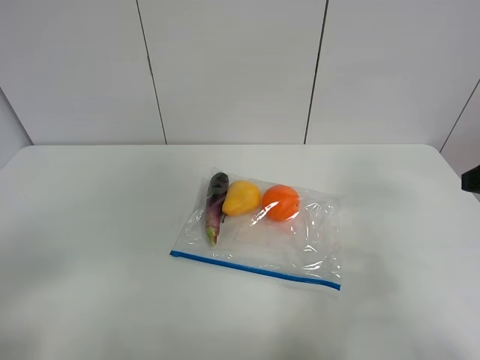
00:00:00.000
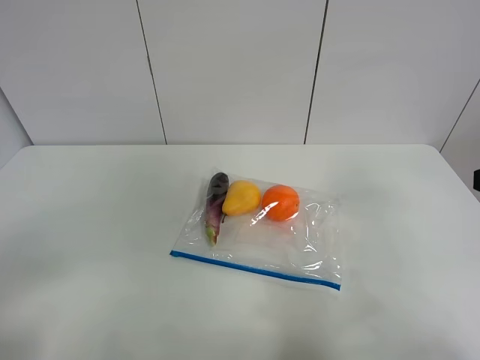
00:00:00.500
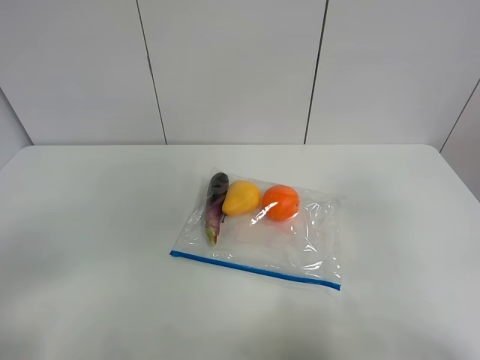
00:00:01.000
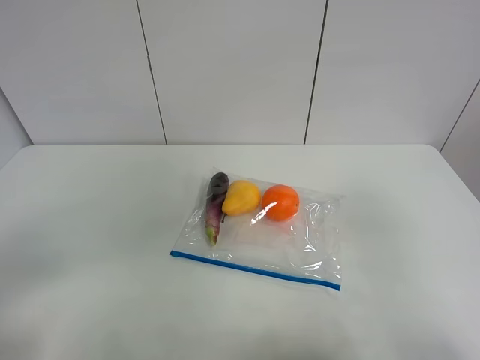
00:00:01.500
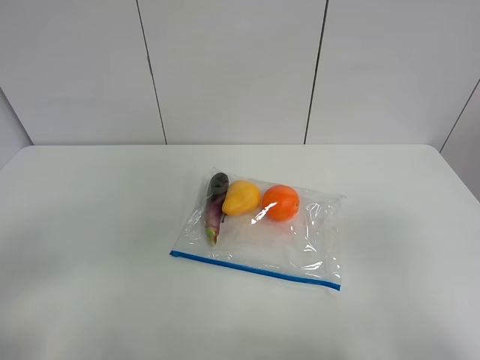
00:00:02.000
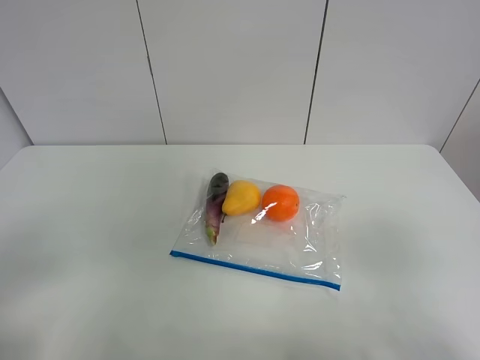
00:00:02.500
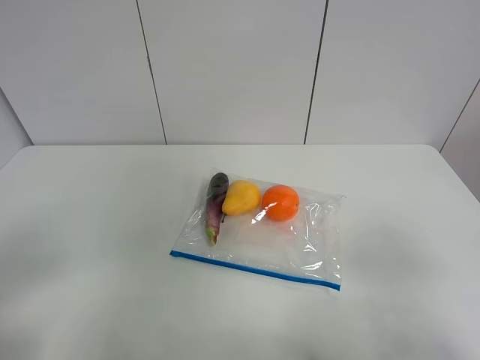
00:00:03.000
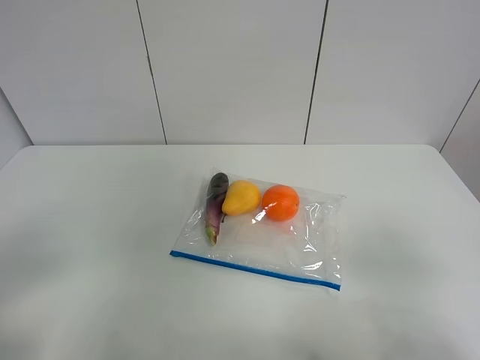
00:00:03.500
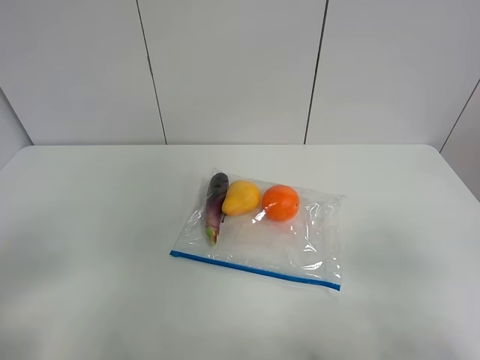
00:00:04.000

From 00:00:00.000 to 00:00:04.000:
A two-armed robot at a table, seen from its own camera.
From 00:00:00.000 to 00:00:02.000: The right gripper goes some 20 cm backward.

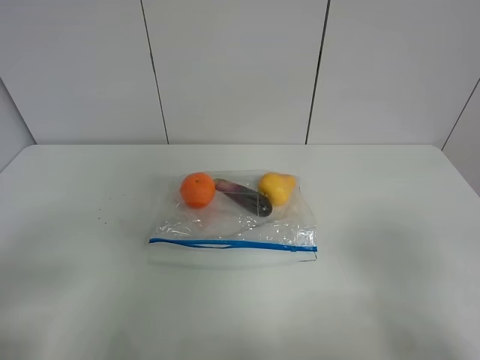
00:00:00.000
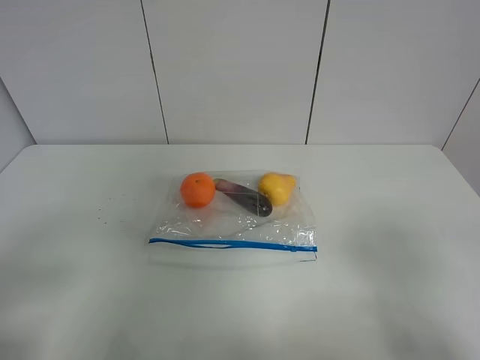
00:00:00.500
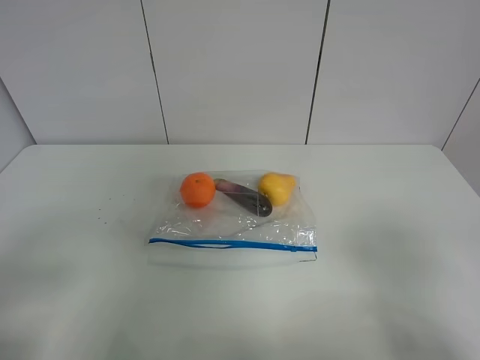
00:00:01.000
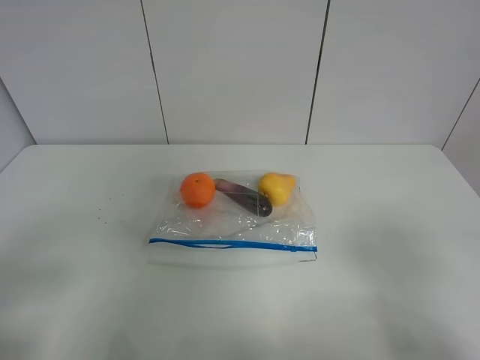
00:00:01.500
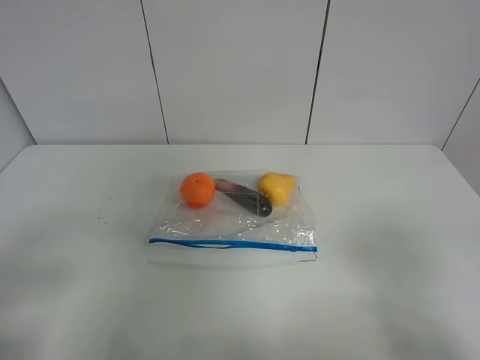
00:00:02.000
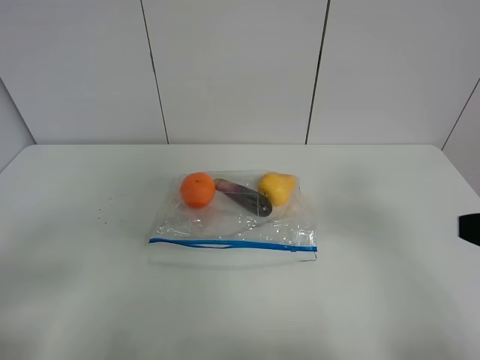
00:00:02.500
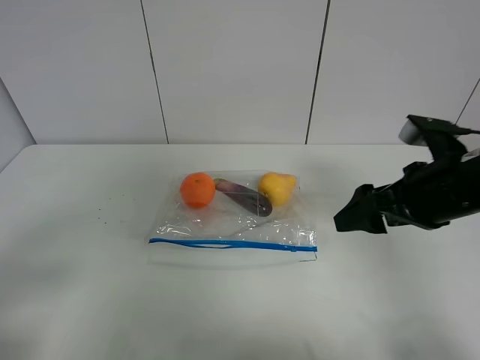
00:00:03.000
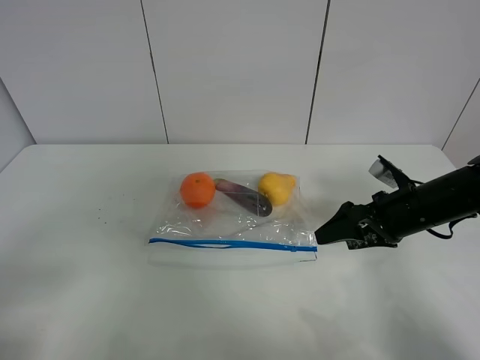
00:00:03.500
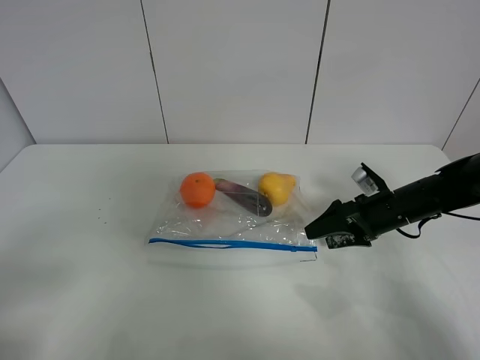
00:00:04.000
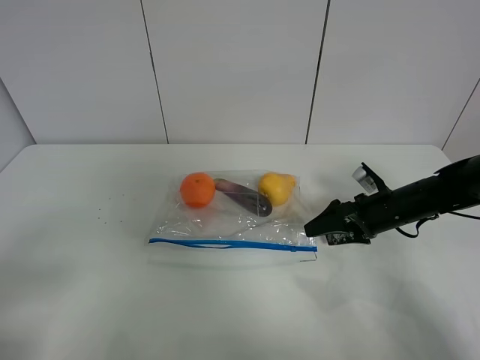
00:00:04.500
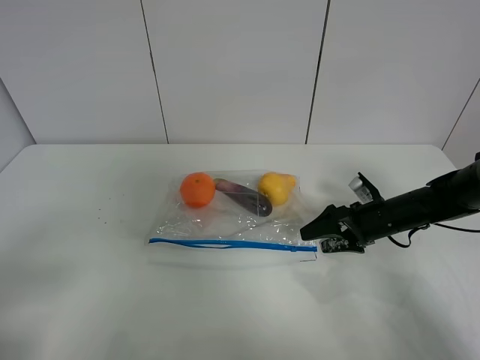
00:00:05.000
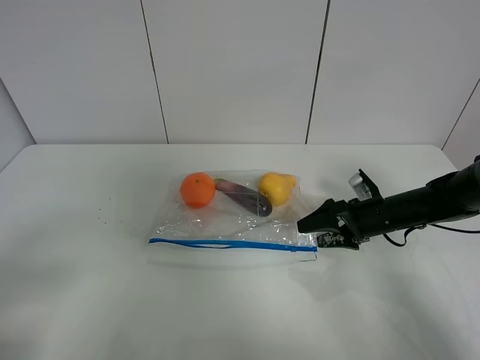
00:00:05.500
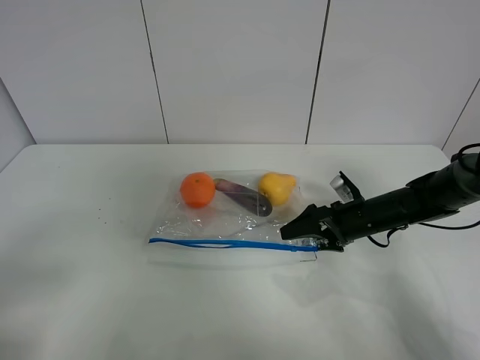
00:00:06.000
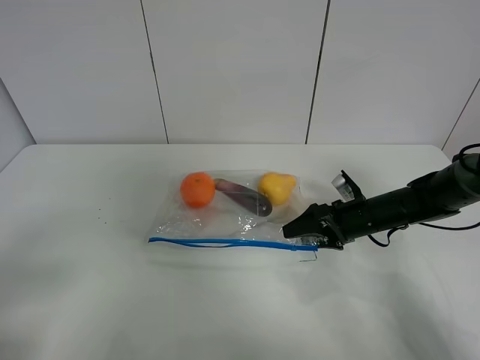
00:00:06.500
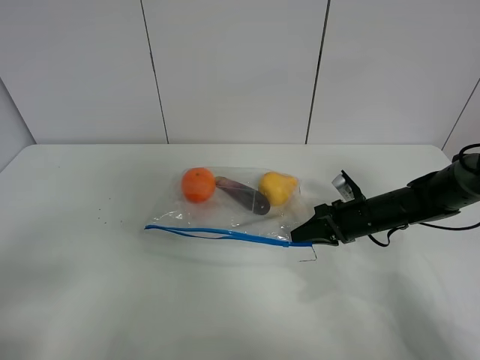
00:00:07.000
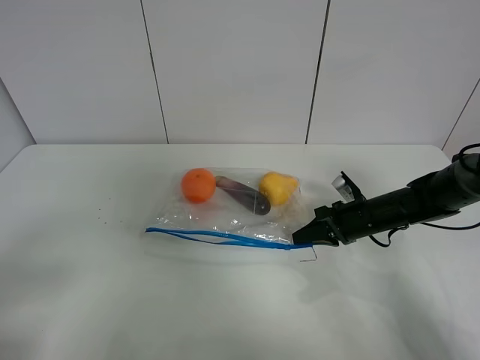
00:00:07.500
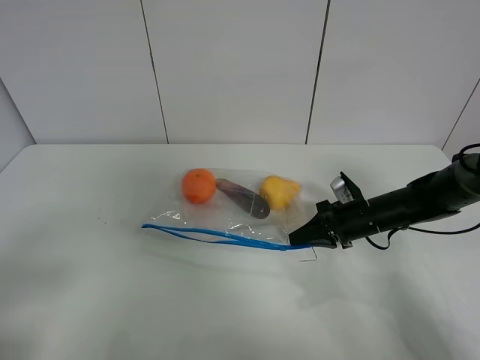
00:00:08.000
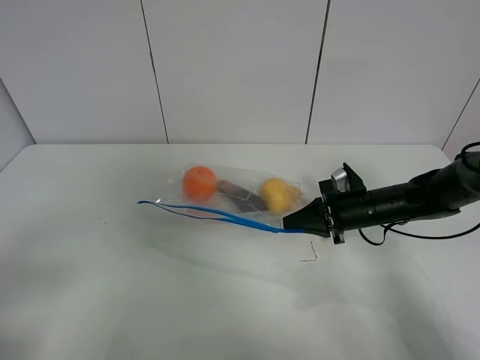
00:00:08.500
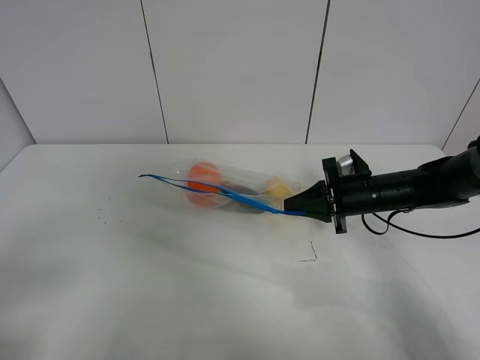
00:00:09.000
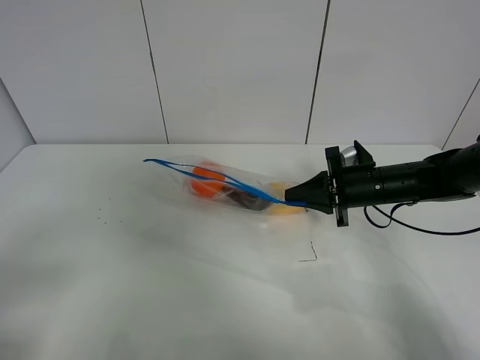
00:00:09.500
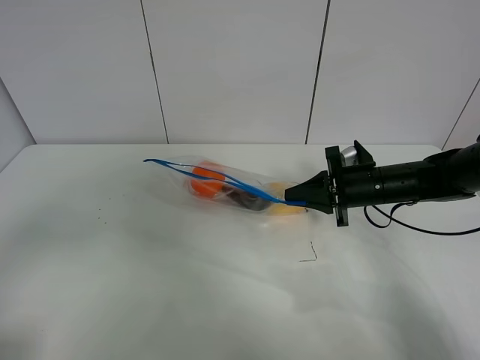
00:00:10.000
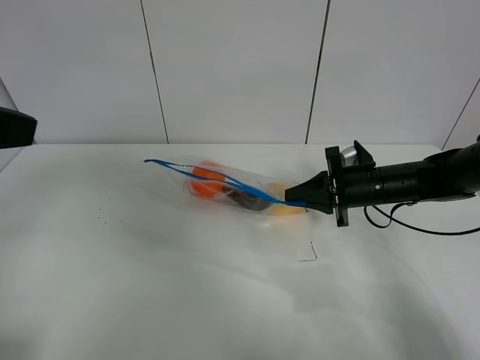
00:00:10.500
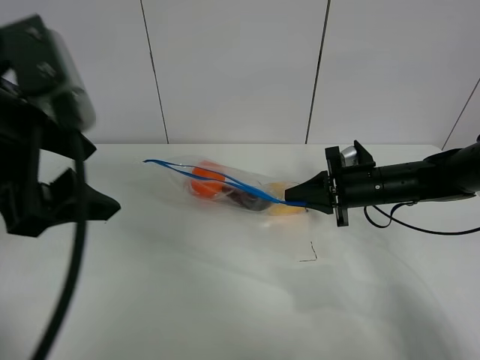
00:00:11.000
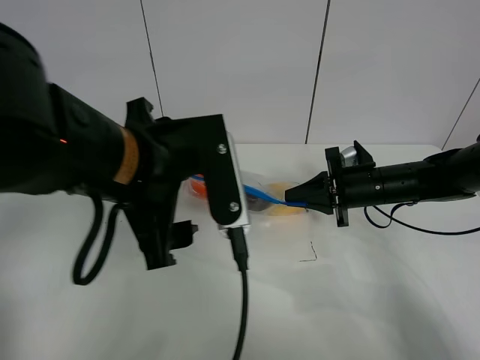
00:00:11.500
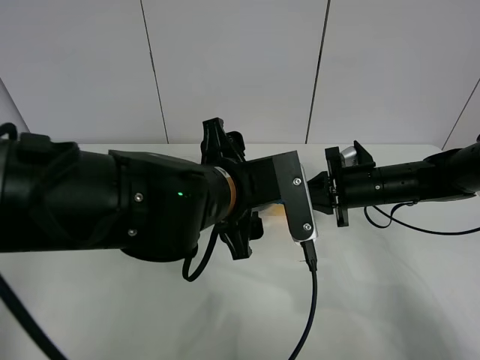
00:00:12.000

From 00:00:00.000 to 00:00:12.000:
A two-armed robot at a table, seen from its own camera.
Step, from 00:00:00.000 to 00:00:07.000: Grasp the fruit bag with right gripper.
Step, from 00:00:07.500 to 00:00:09.500: Lift the fruit bag with your right gripper.
From 00:00:00.000 to 00:00:02.000: Both grippers stay about where they are.
From 00:00:02.000 to 00:00:04.000: The right gripper heads forward and downward, covering about 35 cm.
From 00:00:04.000 to 00:00:06.000: The grippers move only a little.
From 00:00:06.000 to 00:00:08.000: The right gripper closes its fingers.
From 00:00:08.000 to 00:00:10.000: Both grippers travel together upward, some 5 cm.
From 00:00:10.000 to 00:00:12.000: The left gripper shifts roughly 35 cm to the right and forward.

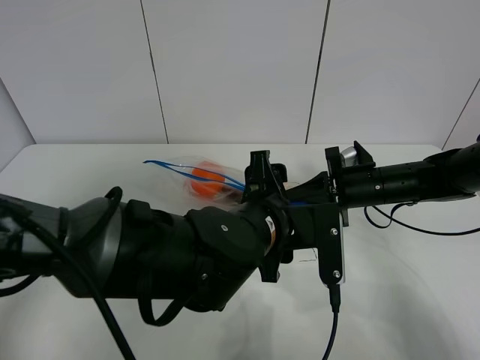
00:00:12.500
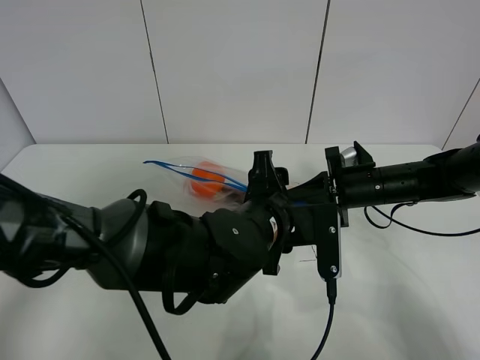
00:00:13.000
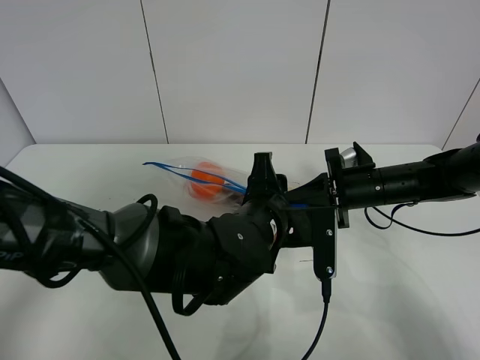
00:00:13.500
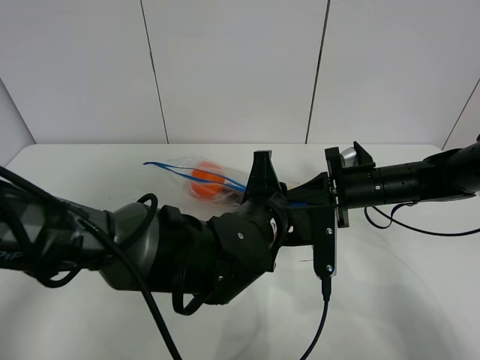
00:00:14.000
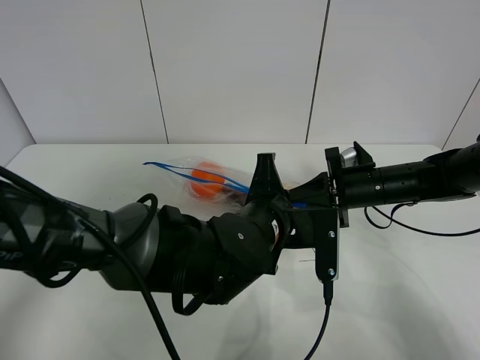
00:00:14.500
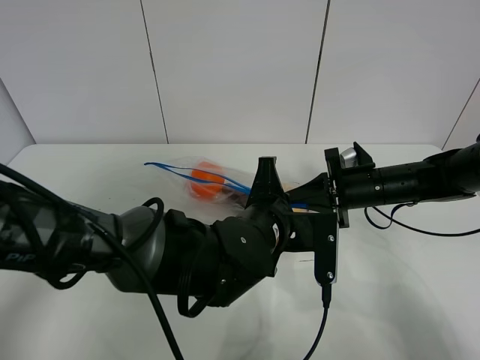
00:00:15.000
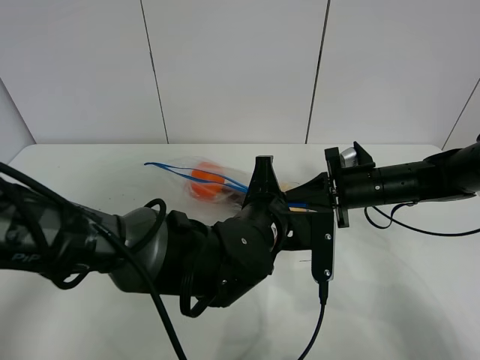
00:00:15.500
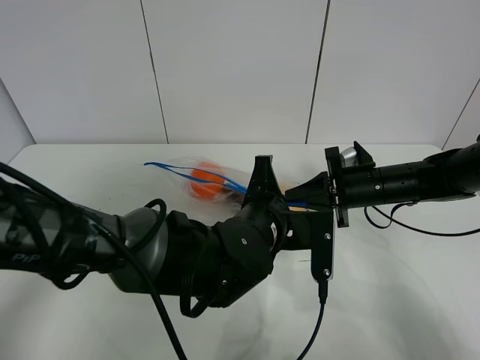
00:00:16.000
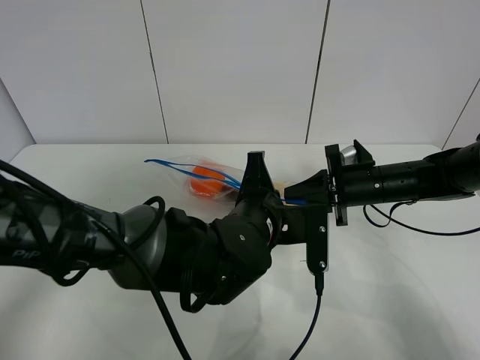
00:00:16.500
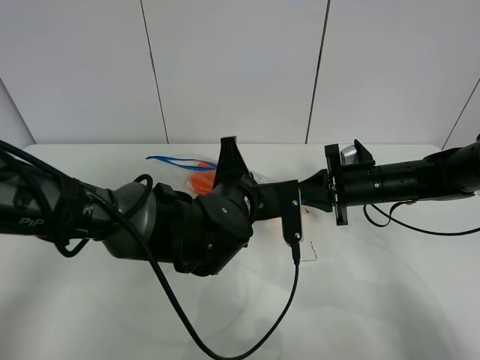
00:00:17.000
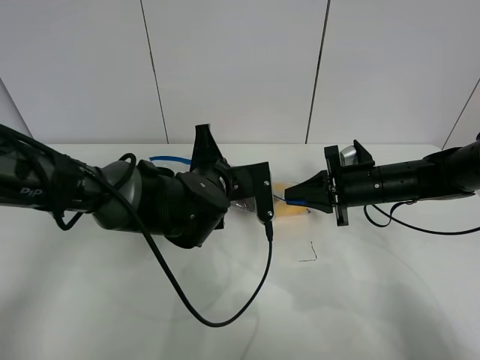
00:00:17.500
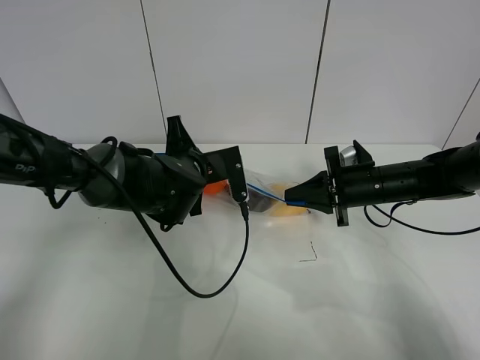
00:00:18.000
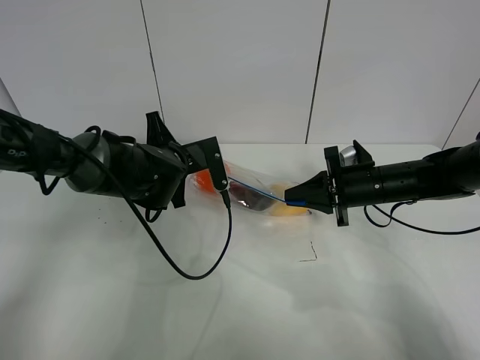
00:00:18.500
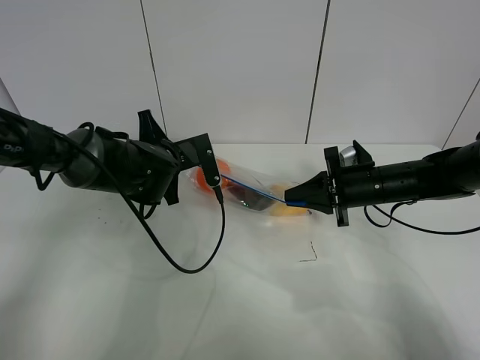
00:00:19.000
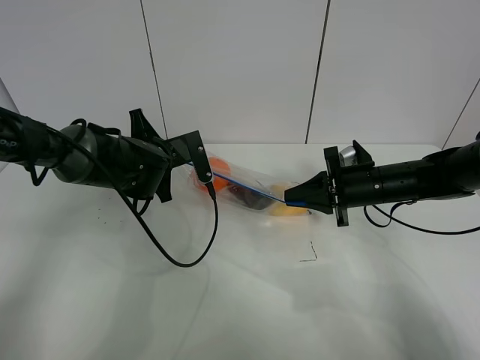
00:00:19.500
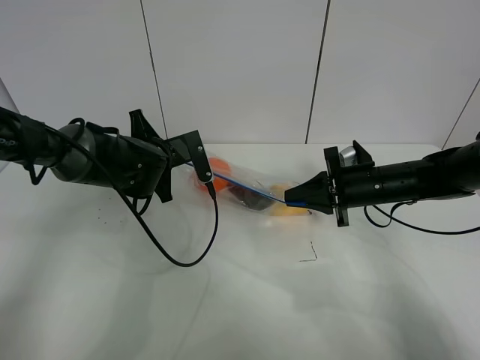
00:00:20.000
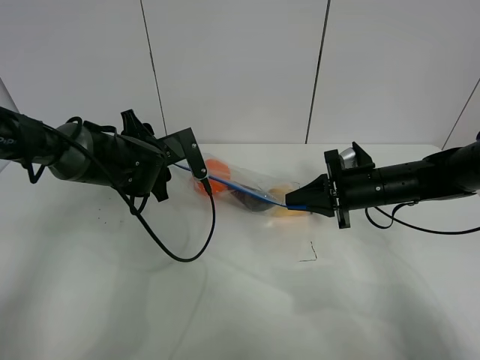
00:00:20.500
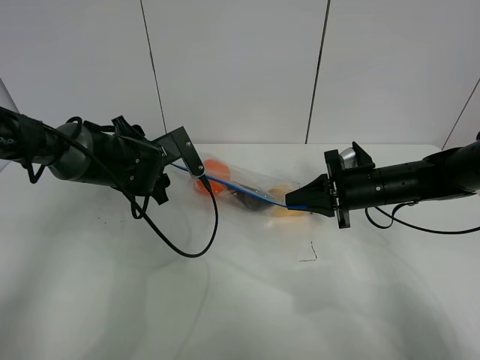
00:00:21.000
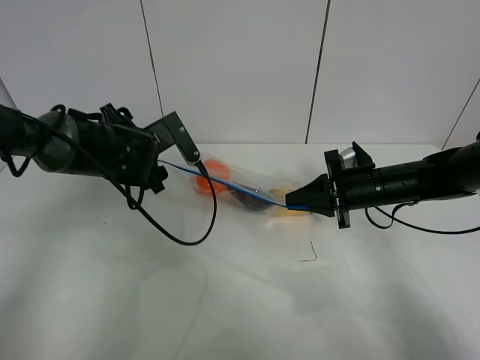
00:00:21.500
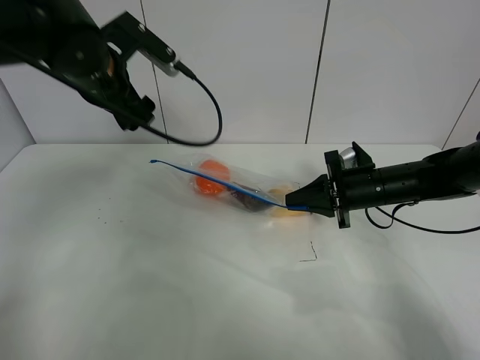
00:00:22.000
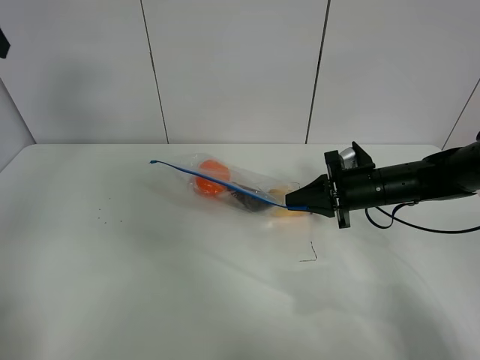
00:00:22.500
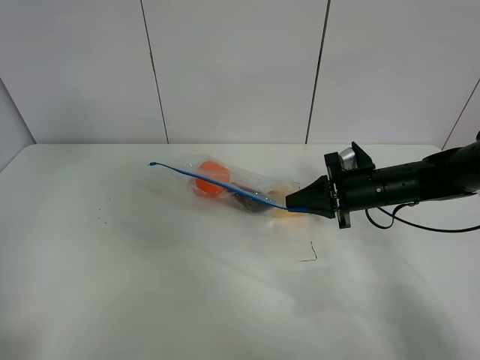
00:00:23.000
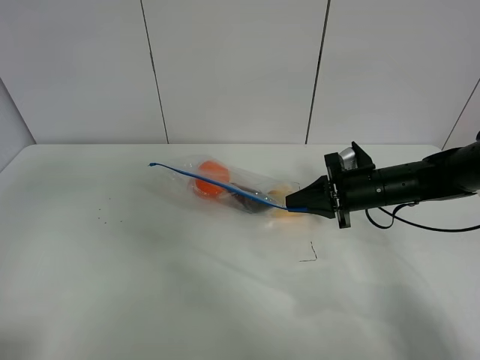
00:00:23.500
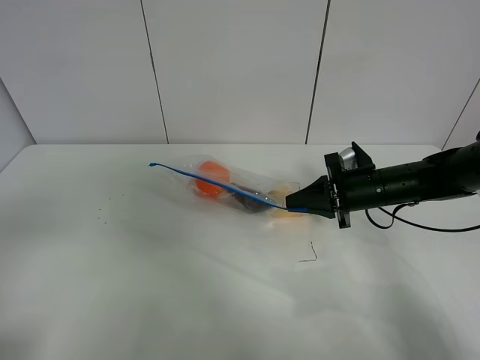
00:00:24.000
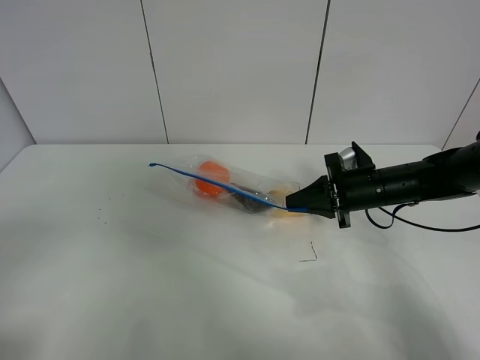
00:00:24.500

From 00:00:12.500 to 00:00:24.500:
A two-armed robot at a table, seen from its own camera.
Step, from 00:00:12.500 to 00:00:20.500: Pull the fruit bag with left gripper.
From 00:00:12.500 to 00:00:14.500: The left gripper closes up.
From 00:00:14.500 to 00:00:16.500: The grippers move only a little.
From 00:00:16.500 to 00:00:18.500: The left gripper goes roughly 15 cm to the left and forward.
From 00:00:18.500 to 00:00:20.500: The left gripper opens.
From 00:00:20.500 to 00:00:22.500: The left gripper travels upward and to the left by roughly 35 cm.
From 00:00:22.500 to 00:00:24.500: The left gripper travels backward and downward by about 35 cm.
